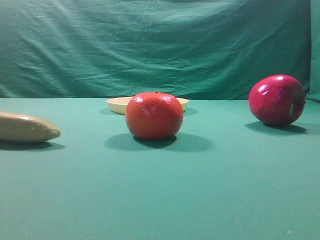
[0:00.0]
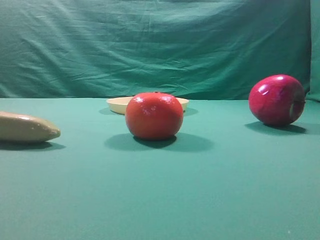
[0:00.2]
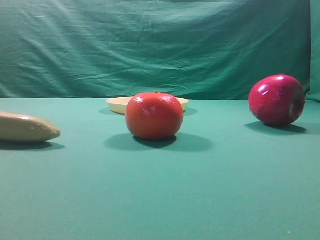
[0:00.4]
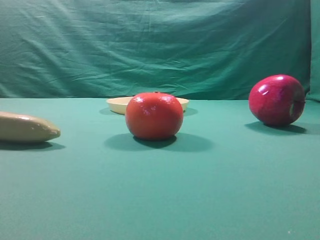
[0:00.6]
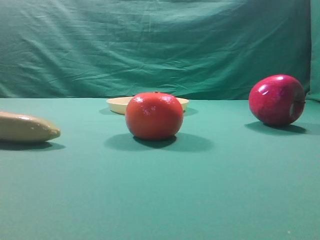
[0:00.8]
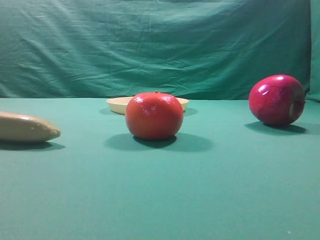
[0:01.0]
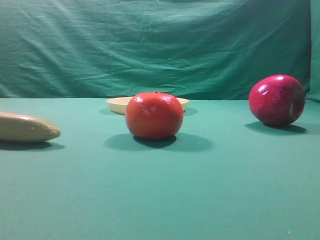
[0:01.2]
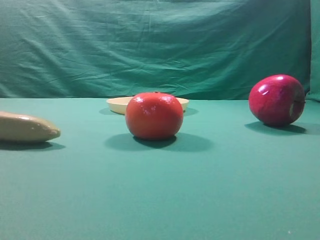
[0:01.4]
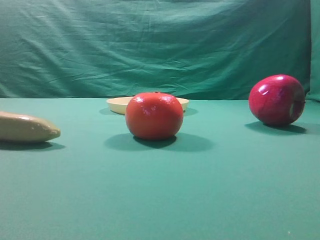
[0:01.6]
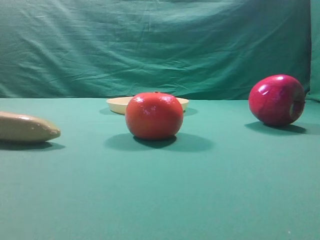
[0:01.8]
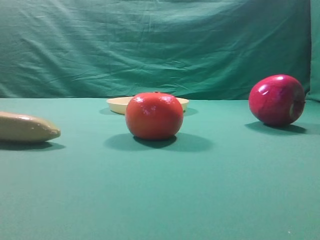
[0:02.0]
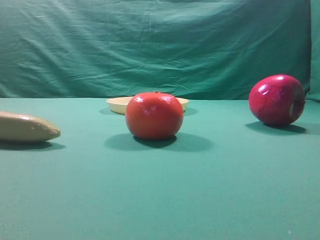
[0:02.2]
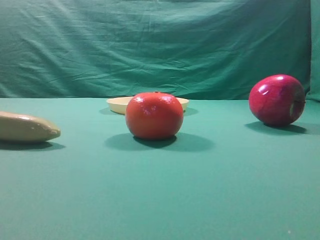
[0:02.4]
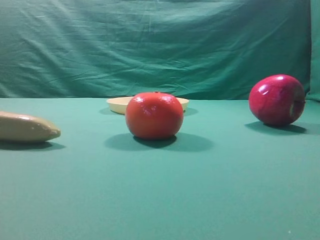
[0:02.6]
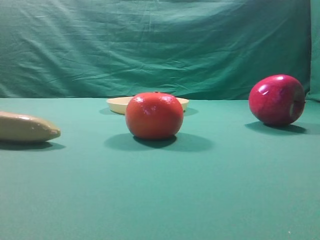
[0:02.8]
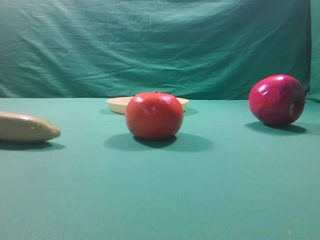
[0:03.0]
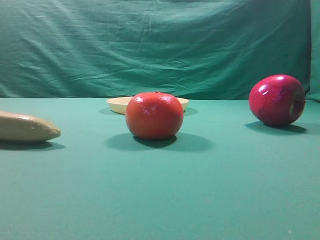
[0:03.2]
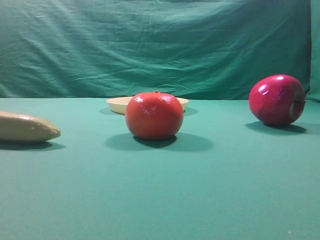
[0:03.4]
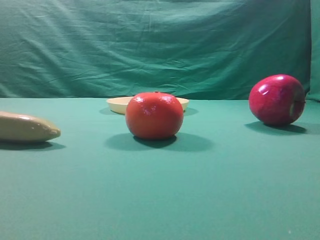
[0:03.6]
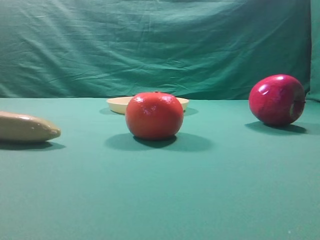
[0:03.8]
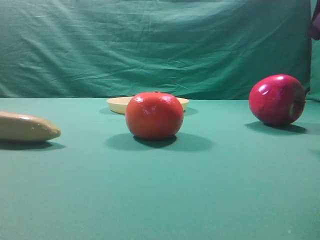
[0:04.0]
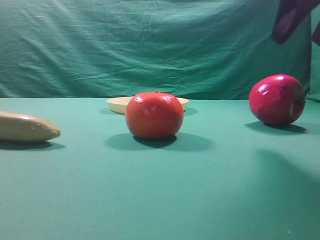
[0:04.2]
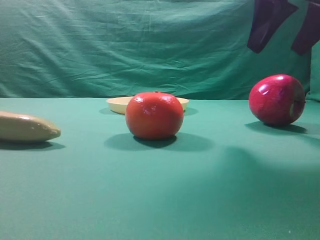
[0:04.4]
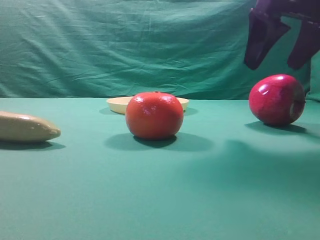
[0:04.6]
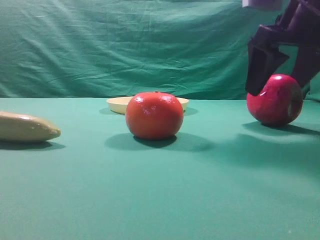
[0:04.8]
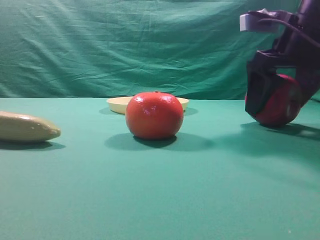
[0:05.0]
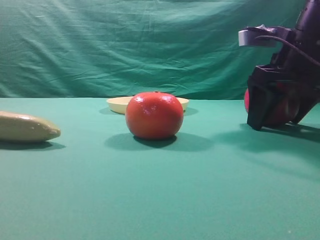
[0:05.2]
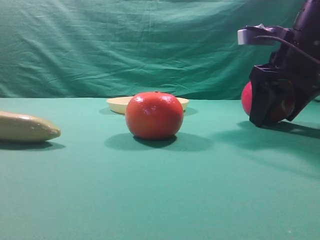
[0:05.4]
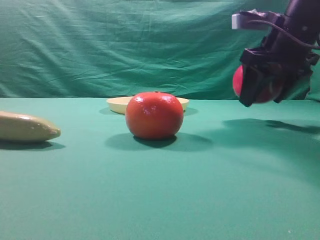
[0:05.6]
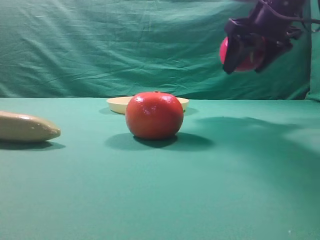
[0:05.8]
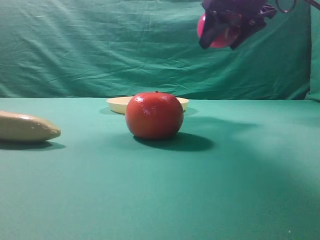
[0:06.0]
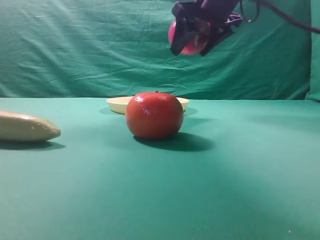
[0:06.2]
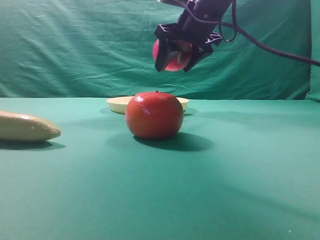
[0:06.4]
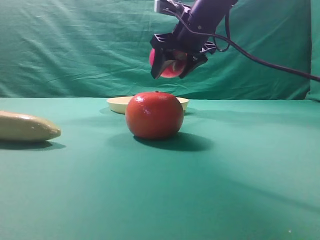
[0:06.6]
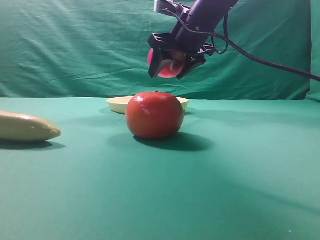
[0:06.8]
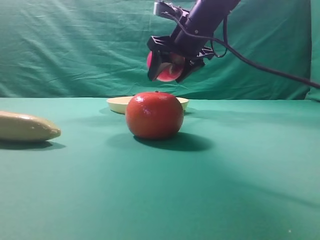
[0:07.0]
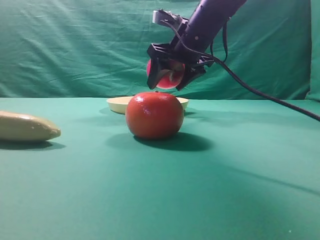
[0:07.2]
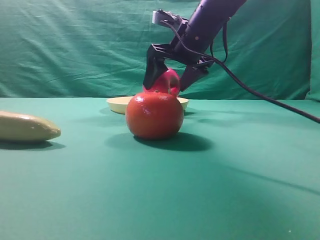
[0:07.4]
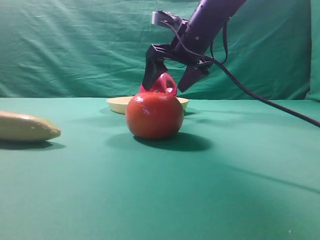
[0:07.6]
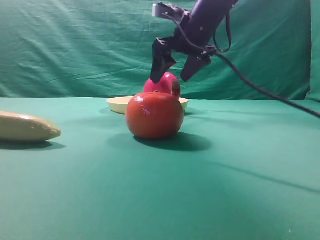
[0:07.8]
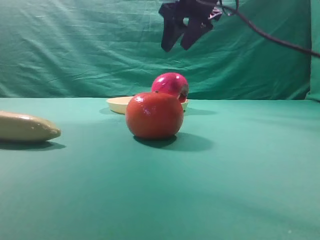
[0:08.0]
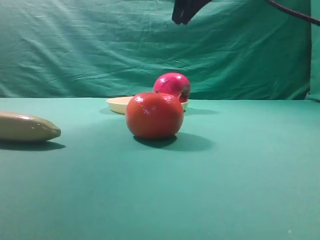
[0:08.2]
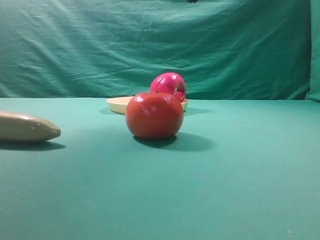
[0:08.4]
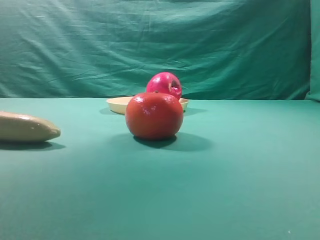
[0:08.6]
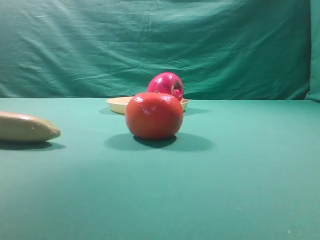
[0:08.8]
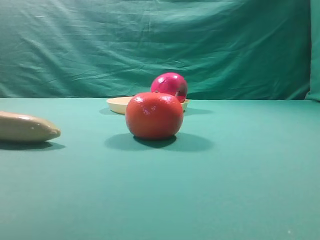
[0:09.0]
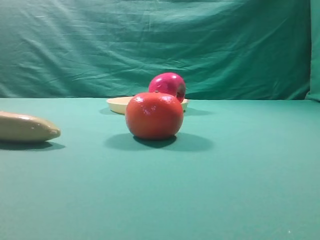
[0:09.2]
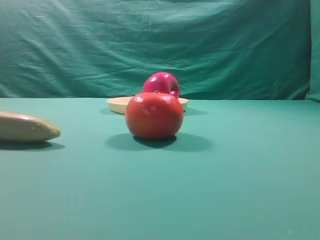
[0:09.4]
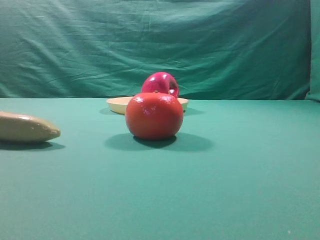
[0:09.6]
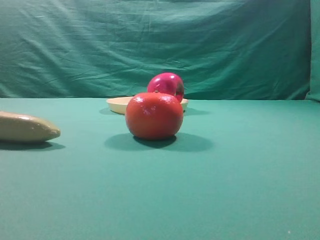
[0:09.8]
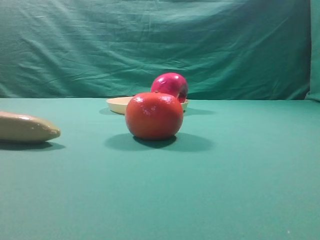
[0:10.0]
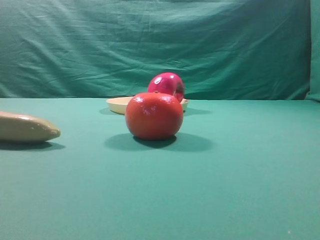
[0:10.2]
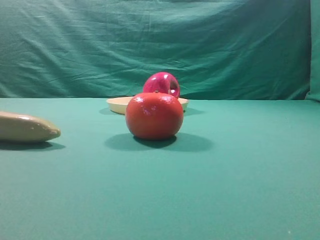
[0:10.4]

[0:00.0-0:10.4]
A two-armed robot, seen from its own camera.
Task of the whole recording: grasp the apple and place it into the yellow plate.
Step, 0:00.0 to 0:05.2: Grasp the fruit that can keep the doctor away.
Step, 0:05.4 to 0:07.6: Place the picked object into the yellow plate.
